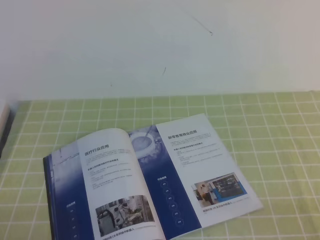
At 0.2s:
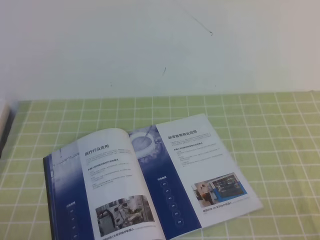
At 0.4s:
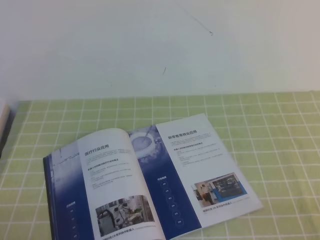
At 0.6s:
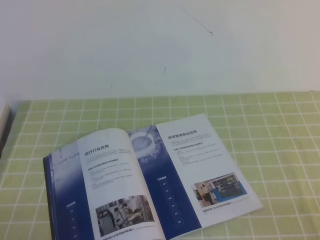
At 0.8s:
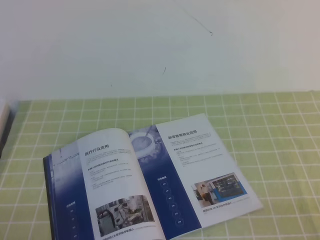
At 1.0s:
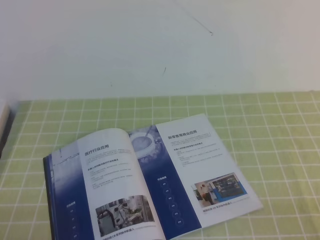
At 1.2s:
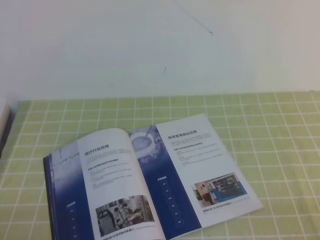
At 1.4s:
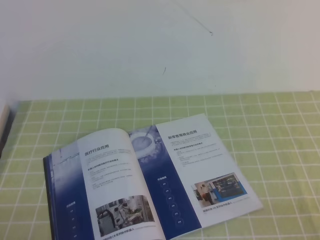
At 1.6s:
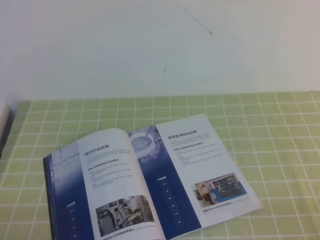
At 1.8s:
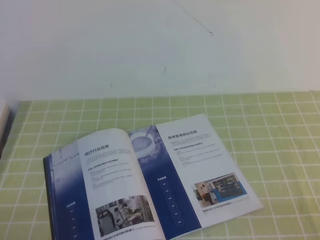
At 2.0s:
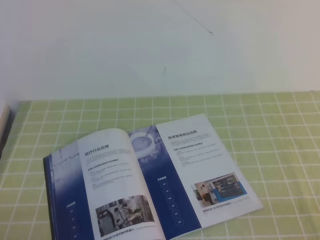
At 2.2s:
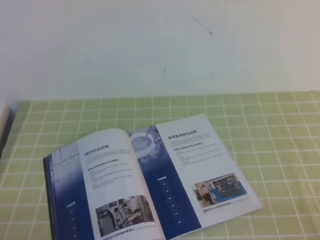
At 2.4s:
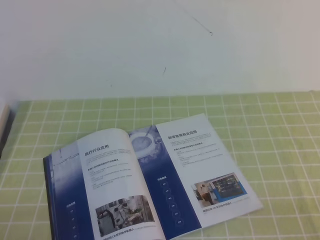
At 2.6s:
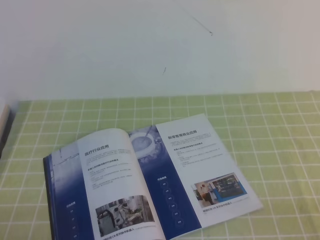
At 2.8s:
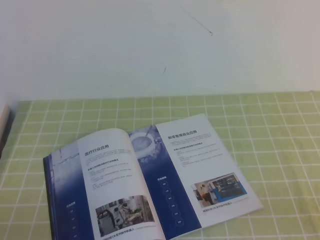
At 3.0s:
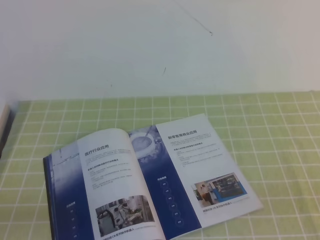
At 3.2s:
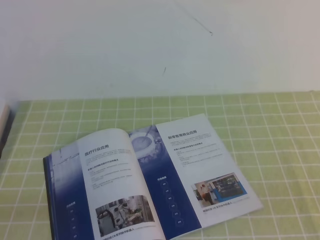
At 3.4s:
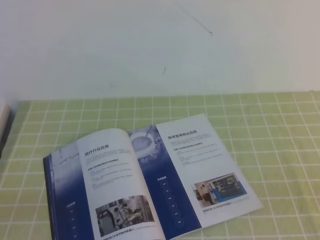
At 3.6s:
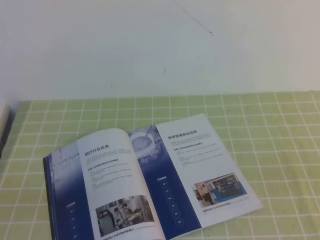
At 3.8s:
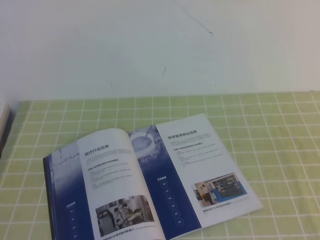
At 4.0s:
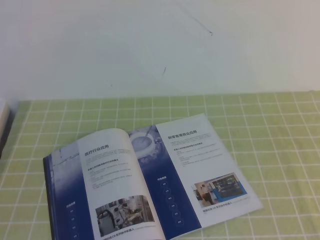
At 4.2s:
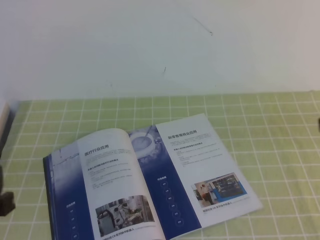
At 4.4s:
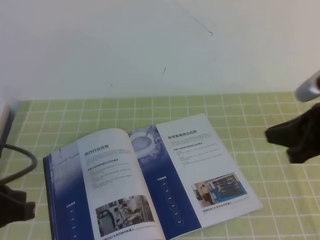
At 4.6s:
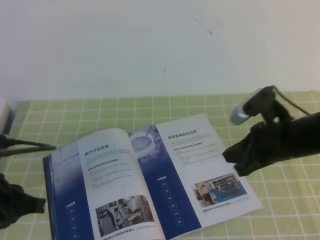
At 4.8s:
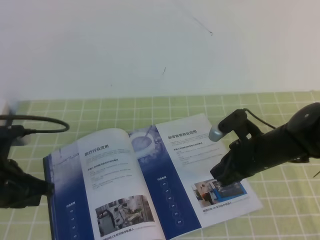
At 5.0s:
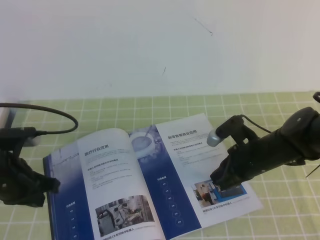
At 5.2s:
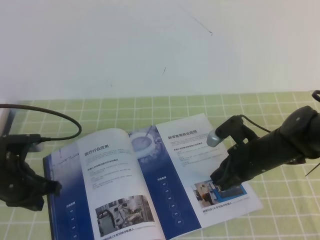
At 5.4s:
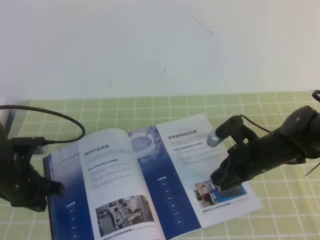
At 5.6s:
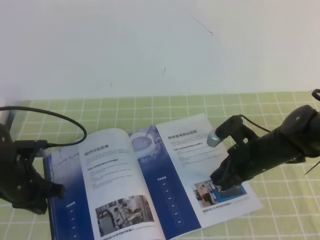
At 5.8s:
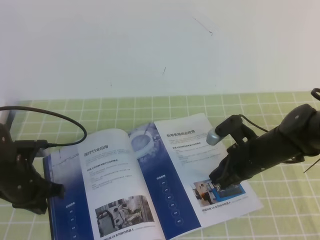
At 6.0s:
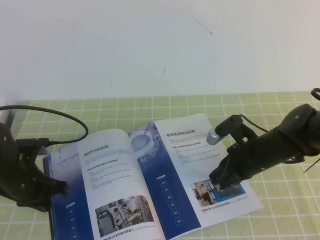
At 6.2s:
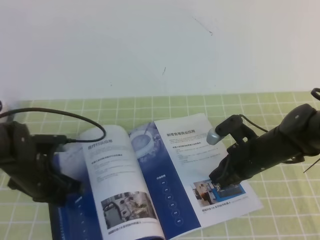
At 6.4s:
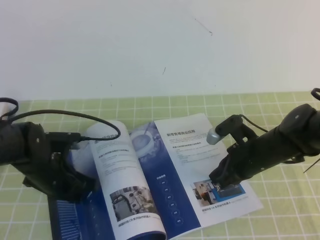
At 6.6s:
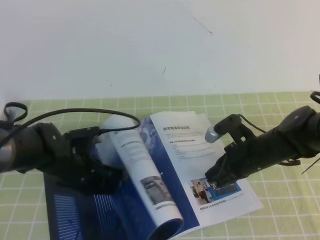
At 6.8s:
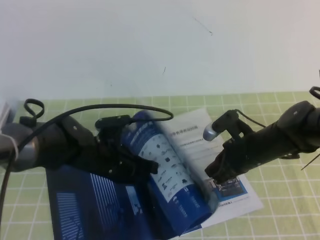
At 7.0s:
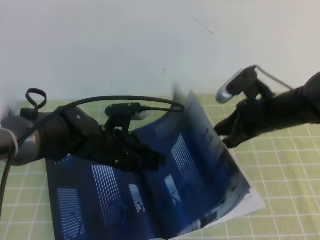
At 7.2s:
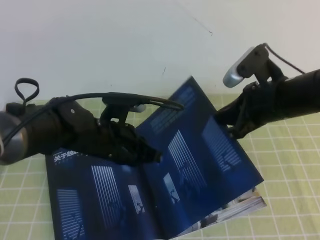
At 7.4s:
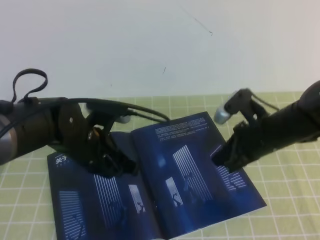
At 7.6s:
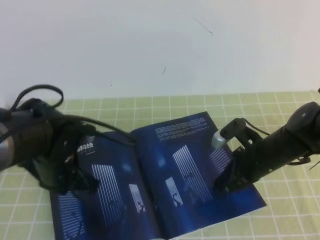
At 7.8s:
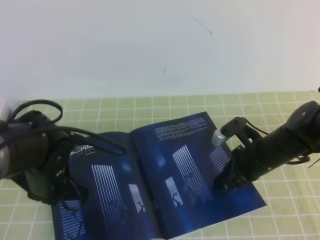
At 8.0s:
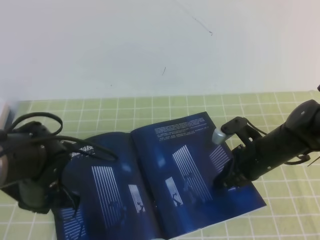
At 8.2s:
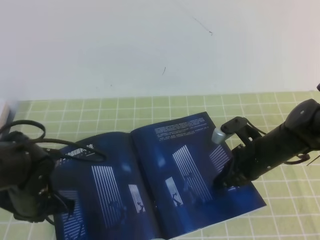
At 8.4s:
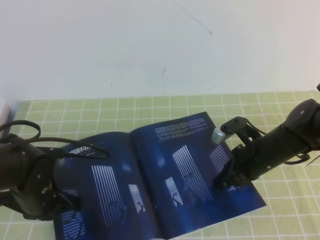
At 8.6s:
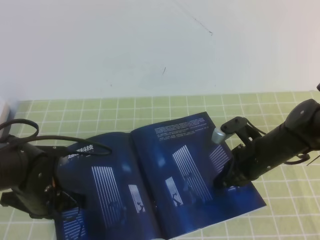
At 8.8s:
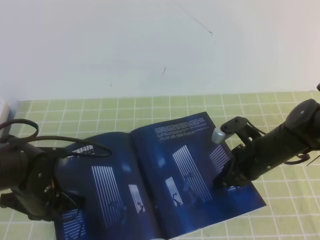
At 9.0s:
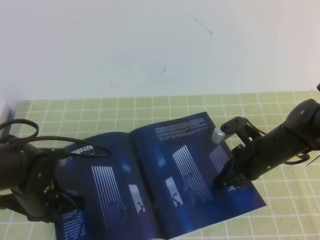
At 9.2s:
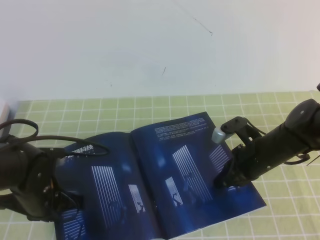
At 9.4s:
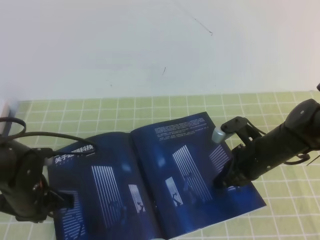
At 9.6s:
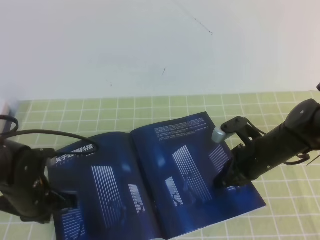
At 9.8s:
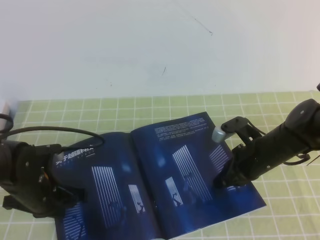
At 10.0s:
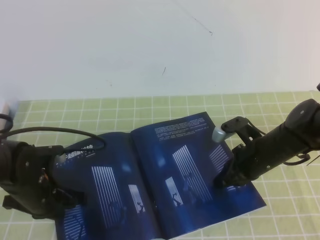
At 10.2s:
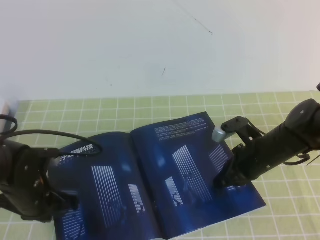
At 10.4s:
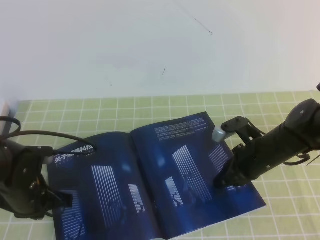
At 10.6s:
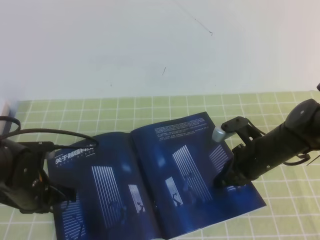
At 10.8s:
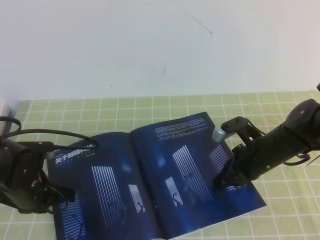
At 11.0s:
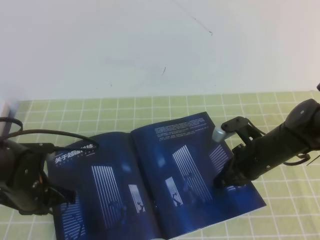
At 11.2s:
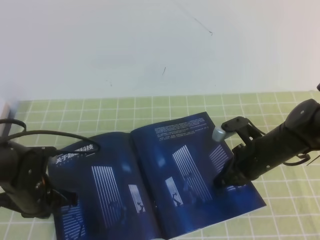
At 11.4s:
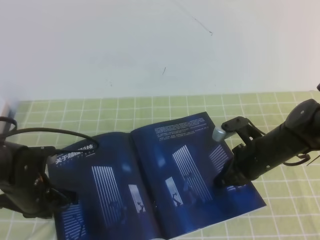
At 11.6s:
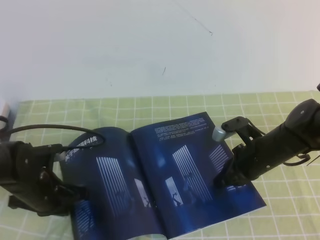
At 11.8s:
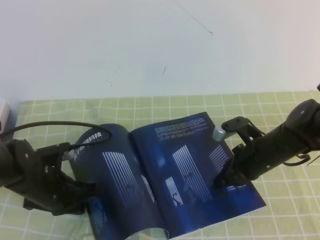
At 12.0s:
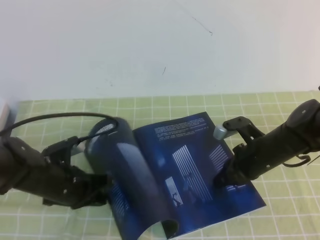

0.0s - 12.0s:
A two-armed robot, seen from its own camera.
Task of the whole recording: on the green tablecloth, hold the book with one hand and close it with the other.
0.0s - 1.6s: Both grippers stay put.
3.0s - 4.4s: The left gripper heads forward and upward, covering roughly 15 cm. Meanwhile the right gripper heads forward, covering about 20 cm.
4.4s - 6.0s: The right gripper shifts roughly 20 cm downward, to the left and forward. Meanwhile the left gripper is displaced forward and downward by some 20 cm.
6.0s - 7.6s: The left gripper goes some 10 cm to the right and upward; the right gripper moves roughly 10 cm upward and comes back.
7.6s - 9.0s: The left gripper shifts by about 5 cm.
9.0s - 10.4s: The grippers make only small movements.

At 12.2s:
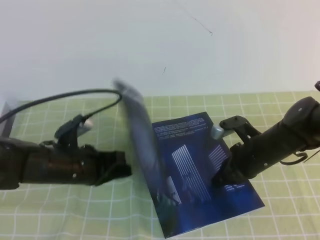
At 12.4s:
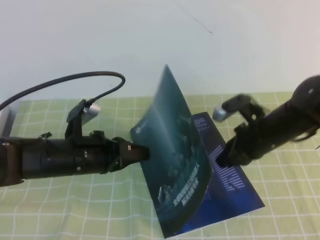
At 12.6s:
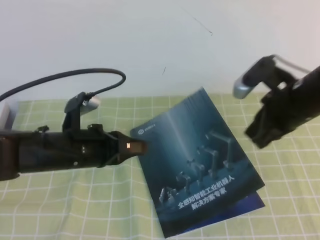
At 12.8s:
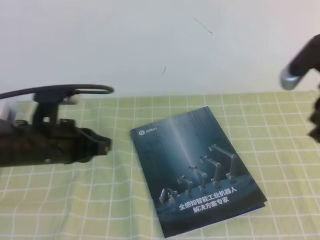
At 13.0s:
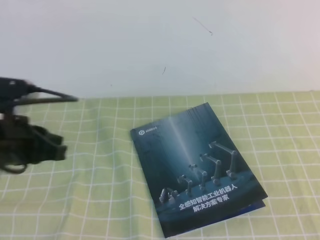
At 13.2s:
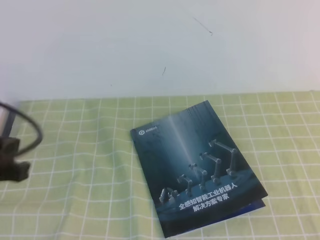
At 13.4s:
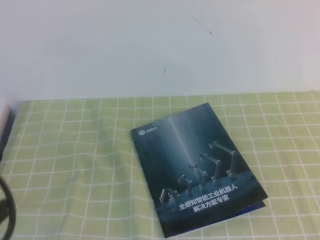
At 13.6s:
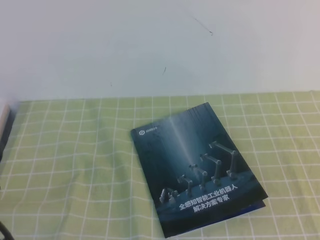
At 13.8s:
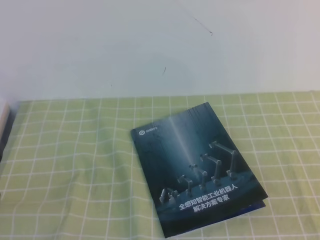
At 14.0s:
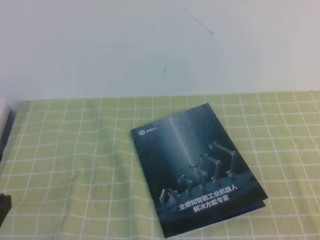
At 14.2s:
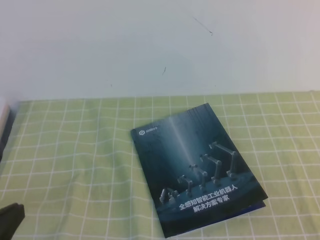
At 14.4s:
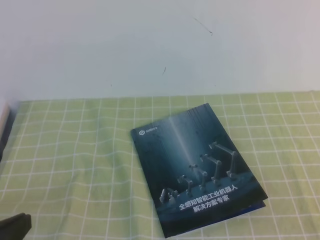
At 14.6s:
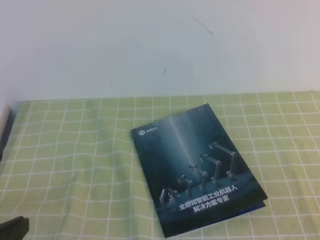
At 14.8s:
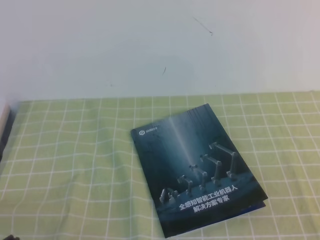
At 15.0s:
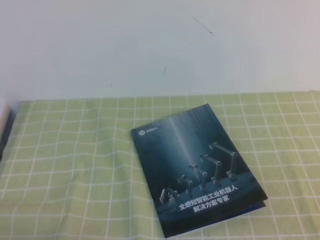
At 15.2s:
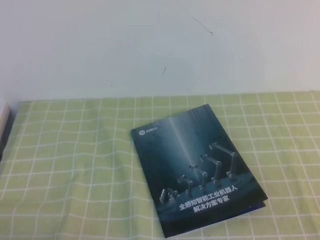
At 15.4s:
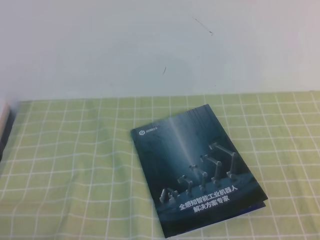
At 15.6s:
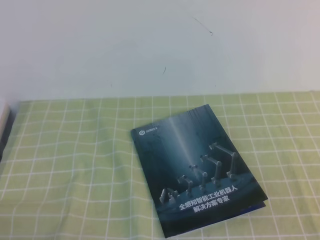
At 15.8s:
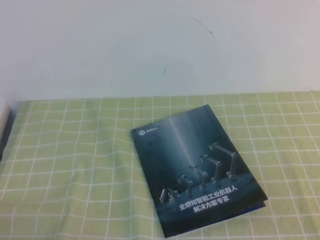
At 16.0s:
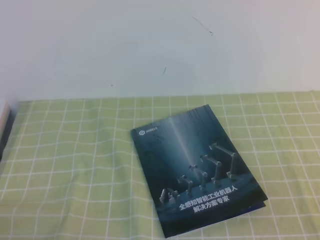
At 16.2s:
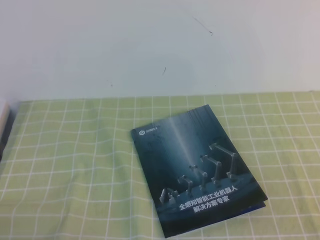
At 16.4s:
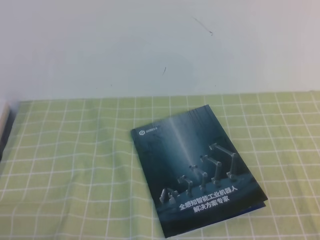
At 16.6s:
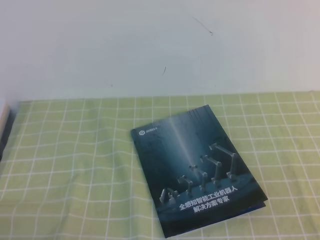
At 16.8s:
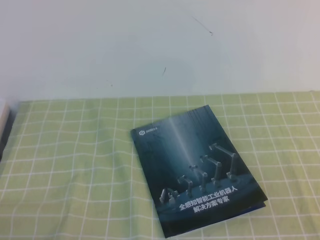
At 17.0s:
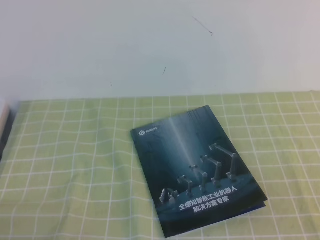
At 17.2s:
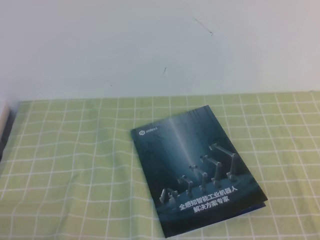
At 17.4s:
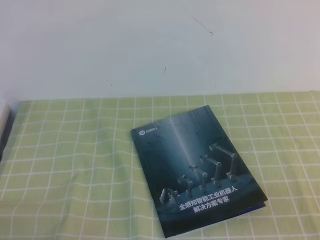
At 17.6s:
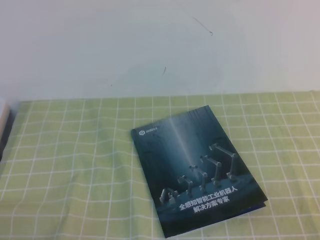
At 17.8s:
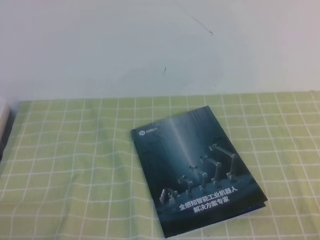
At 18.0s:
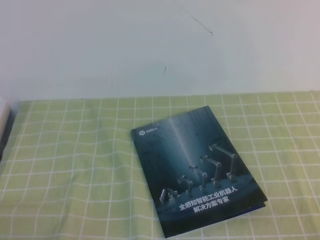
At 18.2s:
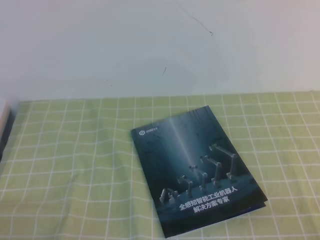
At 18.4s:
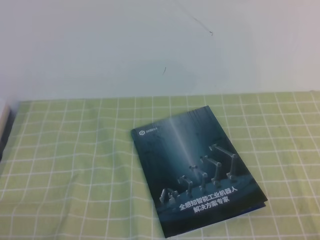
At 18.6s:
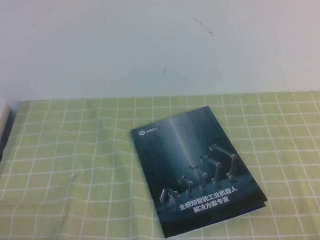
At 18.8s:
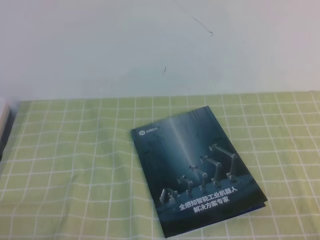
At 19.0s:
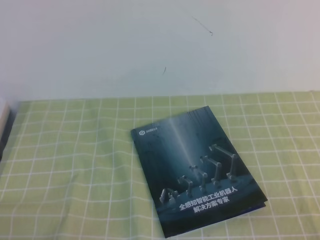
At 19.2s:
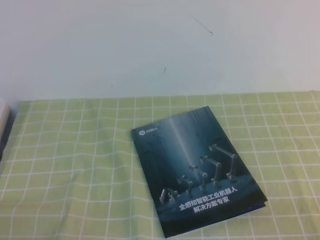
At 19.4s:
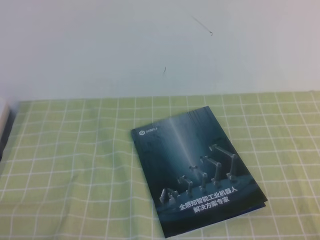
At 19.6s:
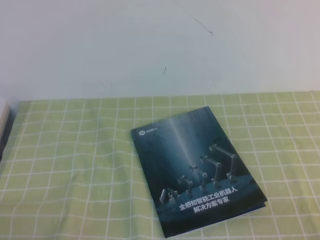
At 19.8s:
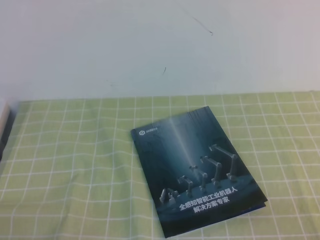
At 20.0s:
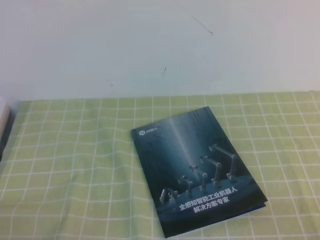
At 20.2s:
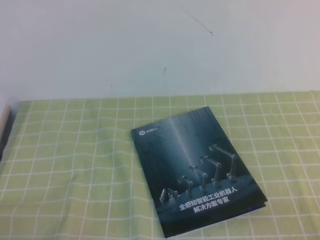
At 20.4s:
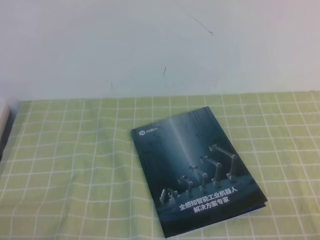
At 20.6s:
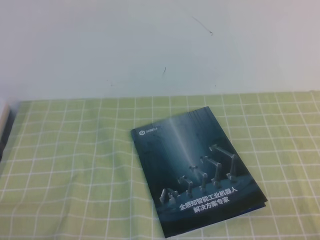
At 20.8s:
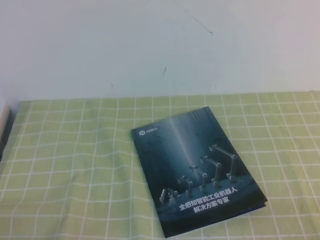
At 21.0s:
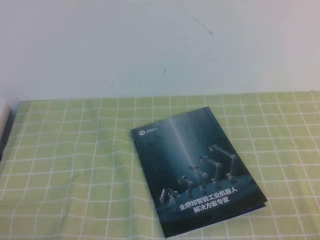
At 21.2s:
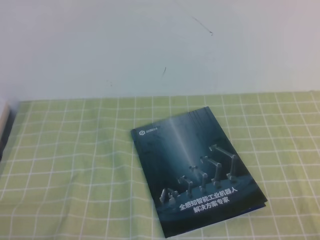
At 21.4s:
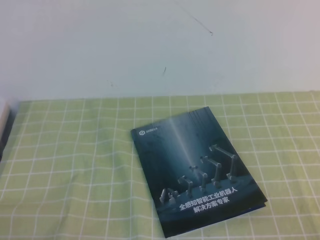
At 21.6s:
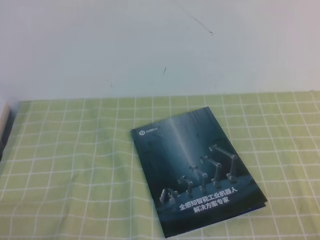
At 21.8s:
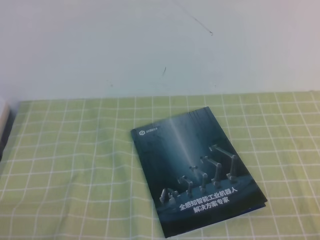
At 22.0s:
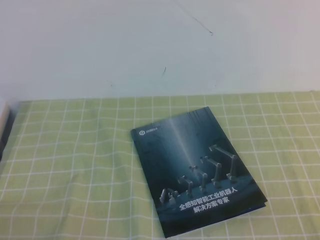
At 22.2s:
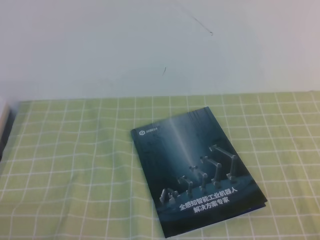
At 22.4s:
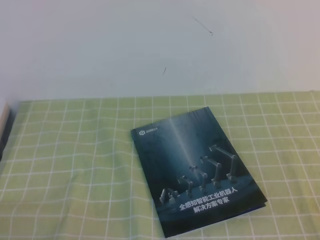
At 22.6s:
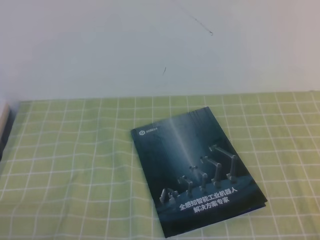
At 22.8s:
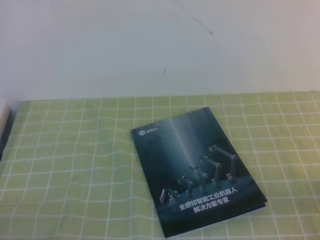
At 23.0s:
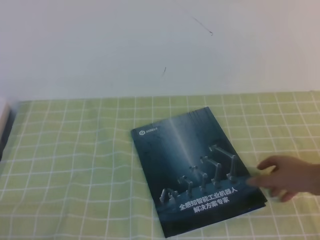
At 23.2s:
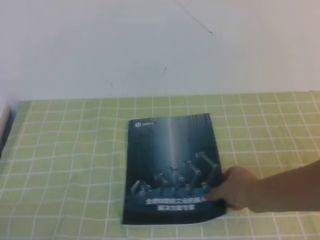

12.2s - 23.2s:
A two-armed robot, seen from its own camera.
Task of the whole recording: on the green tablecloth, hold the book with one hand and close it with the other.
Step, 12.2s - 23.2s: Close the open book.
12.2s - 13.8s: The left gripper travels backward, upward and to the left by about 25 cm. The right gripper goes some 35 cm backward, upward and to the right.
18.4s - 23.2s: The two grippers keep their place.
